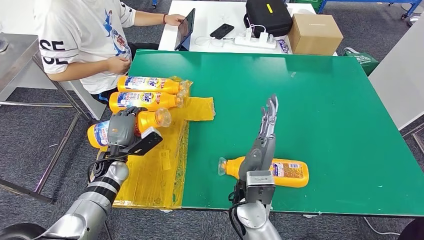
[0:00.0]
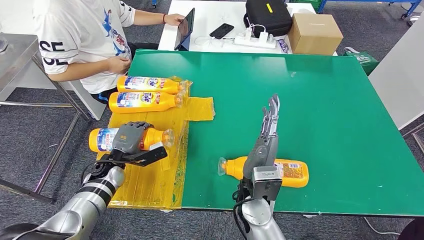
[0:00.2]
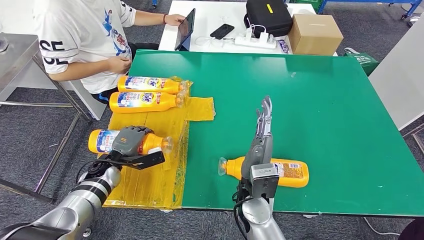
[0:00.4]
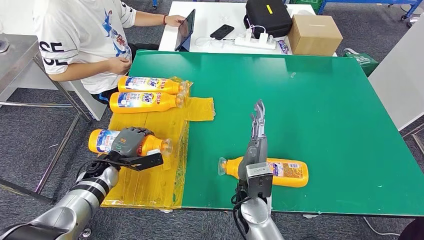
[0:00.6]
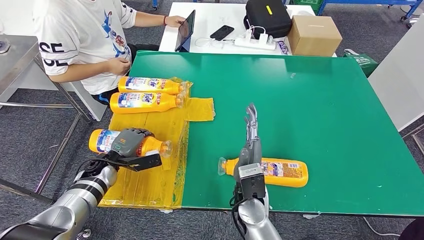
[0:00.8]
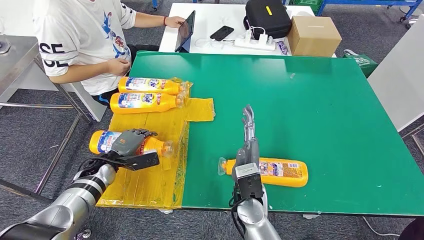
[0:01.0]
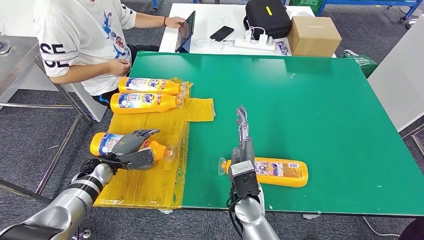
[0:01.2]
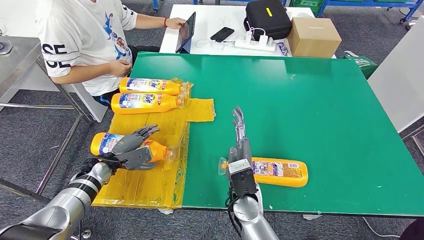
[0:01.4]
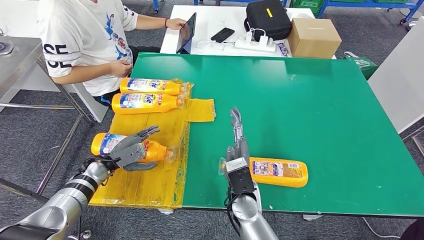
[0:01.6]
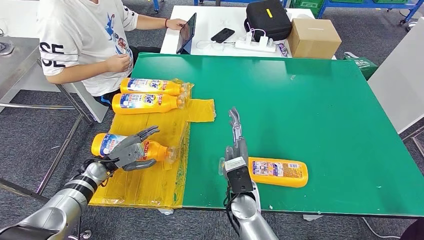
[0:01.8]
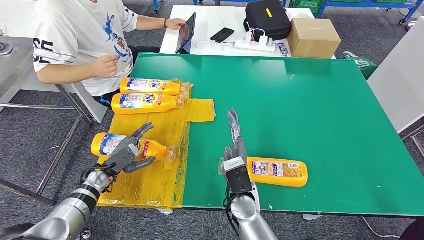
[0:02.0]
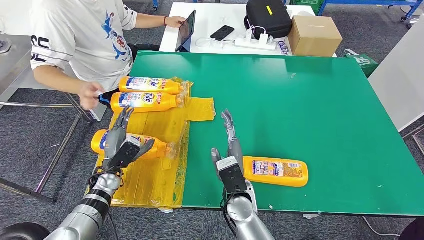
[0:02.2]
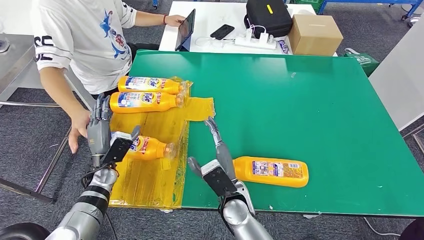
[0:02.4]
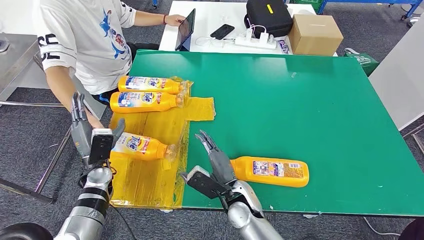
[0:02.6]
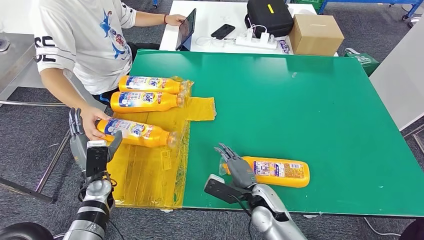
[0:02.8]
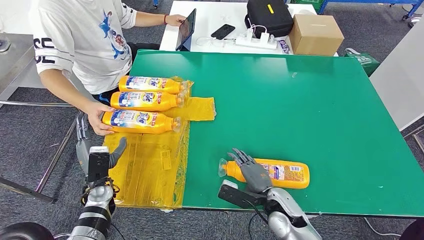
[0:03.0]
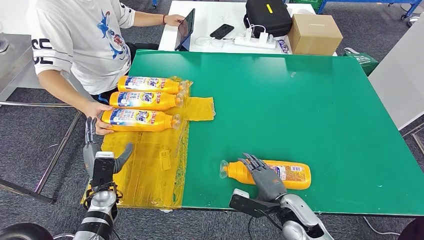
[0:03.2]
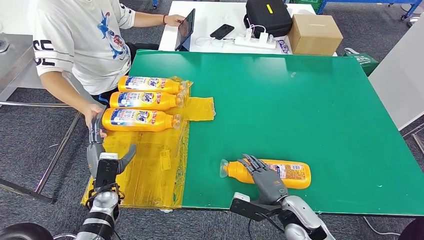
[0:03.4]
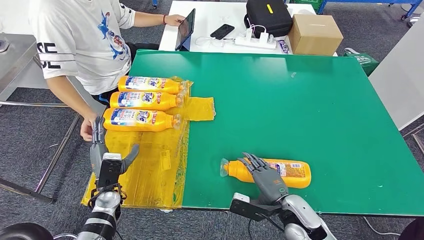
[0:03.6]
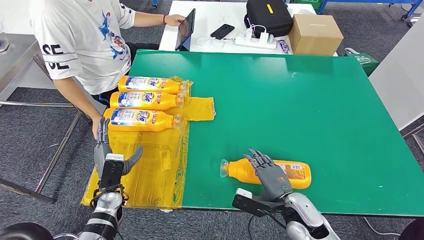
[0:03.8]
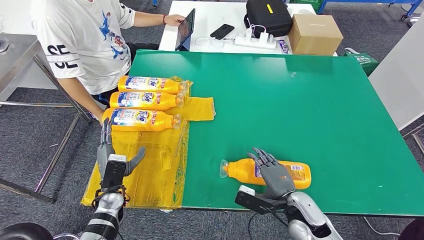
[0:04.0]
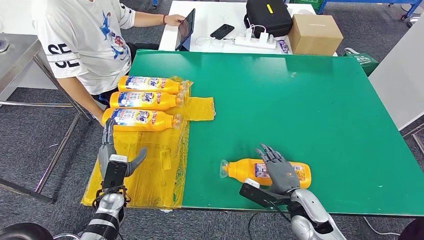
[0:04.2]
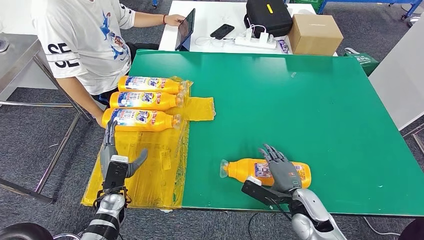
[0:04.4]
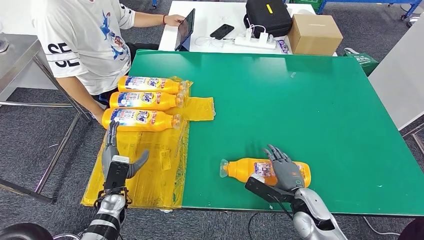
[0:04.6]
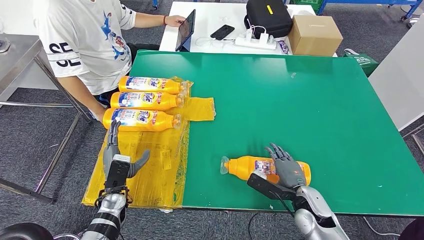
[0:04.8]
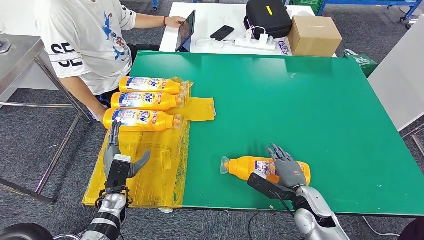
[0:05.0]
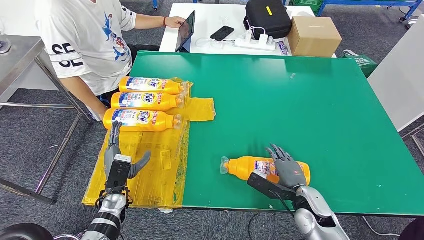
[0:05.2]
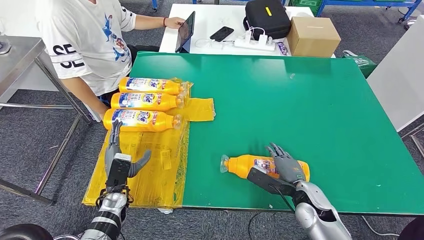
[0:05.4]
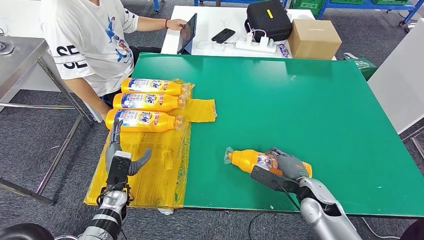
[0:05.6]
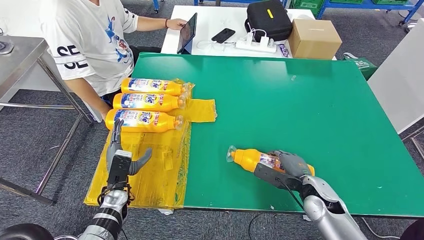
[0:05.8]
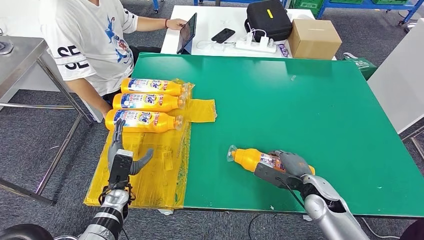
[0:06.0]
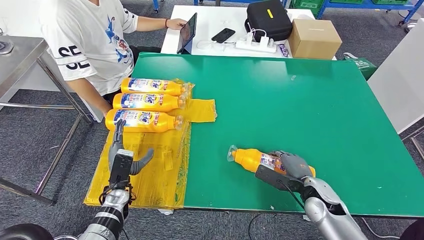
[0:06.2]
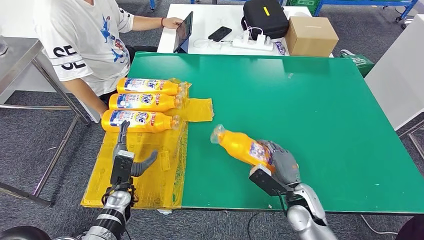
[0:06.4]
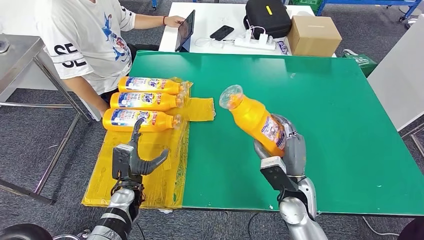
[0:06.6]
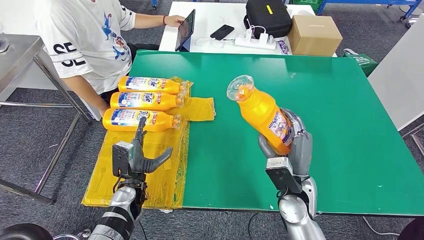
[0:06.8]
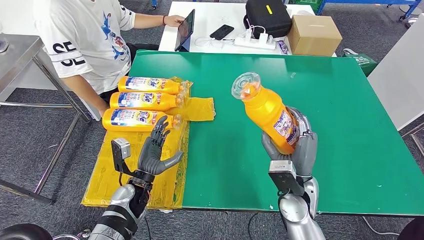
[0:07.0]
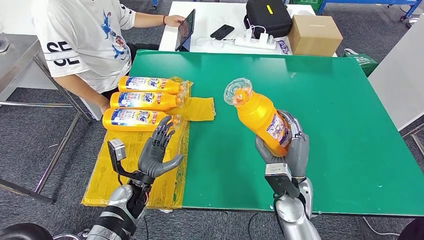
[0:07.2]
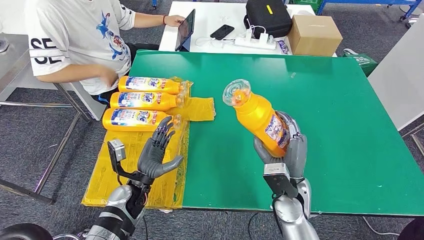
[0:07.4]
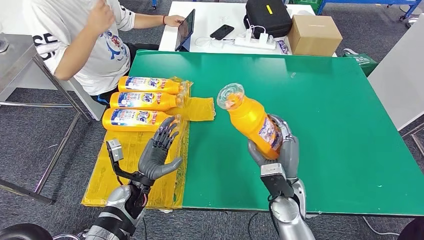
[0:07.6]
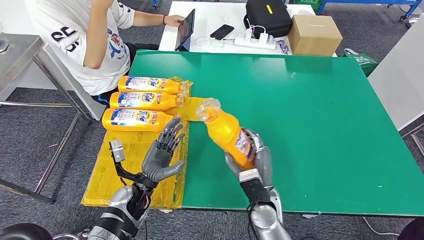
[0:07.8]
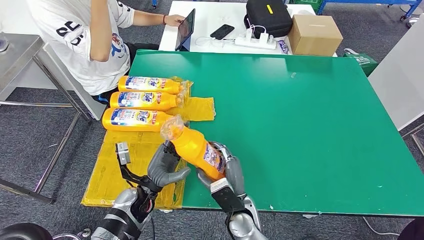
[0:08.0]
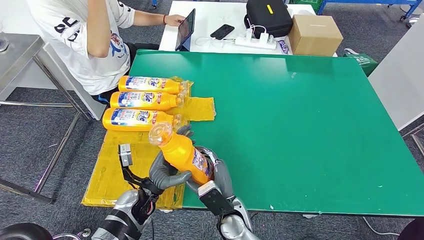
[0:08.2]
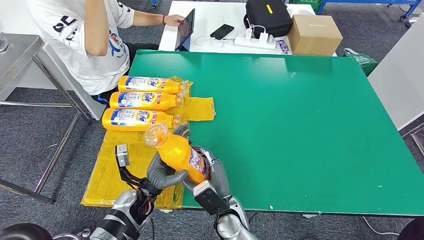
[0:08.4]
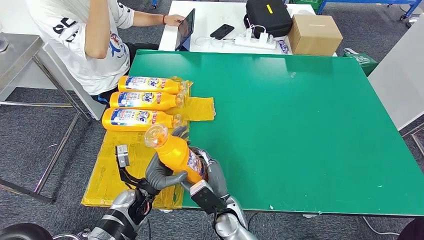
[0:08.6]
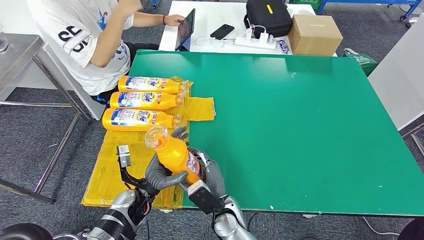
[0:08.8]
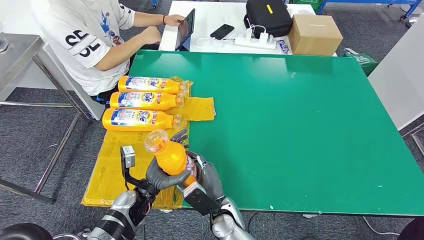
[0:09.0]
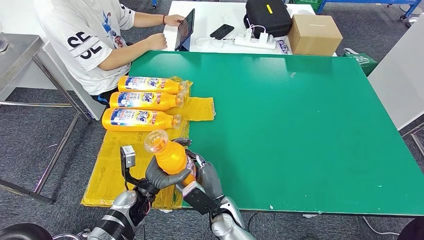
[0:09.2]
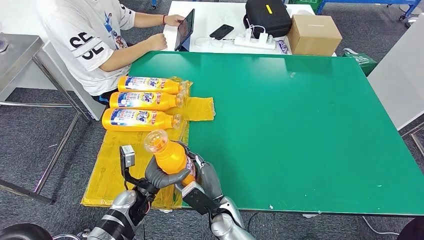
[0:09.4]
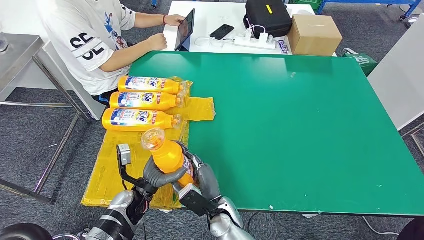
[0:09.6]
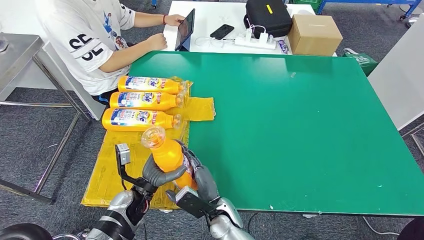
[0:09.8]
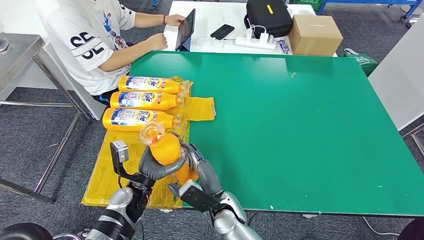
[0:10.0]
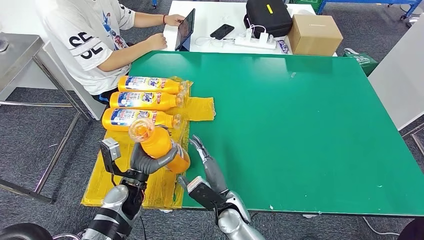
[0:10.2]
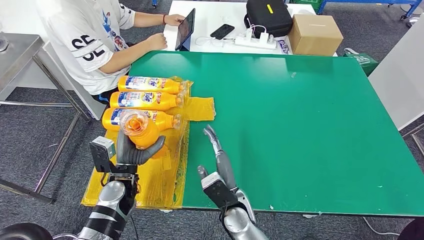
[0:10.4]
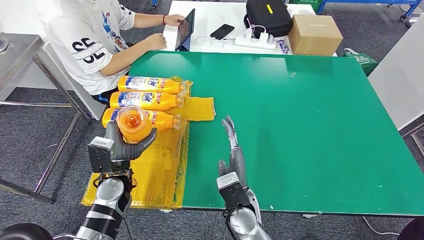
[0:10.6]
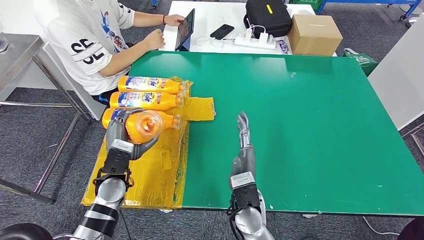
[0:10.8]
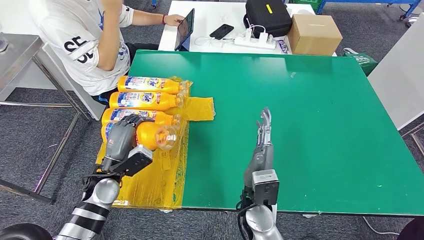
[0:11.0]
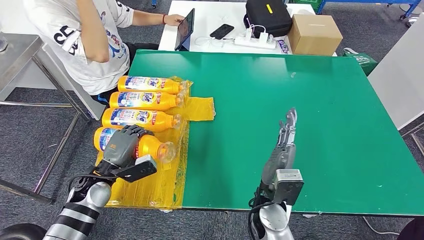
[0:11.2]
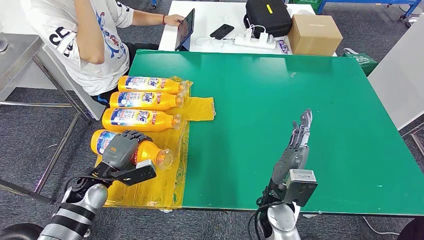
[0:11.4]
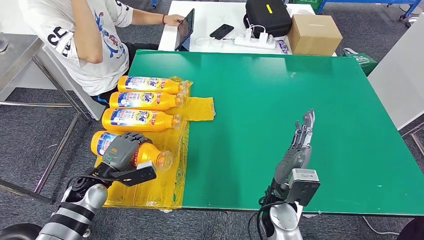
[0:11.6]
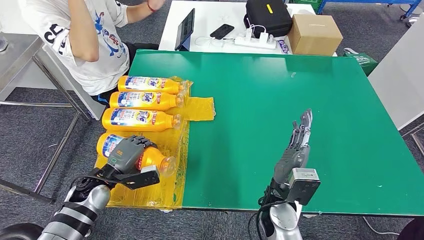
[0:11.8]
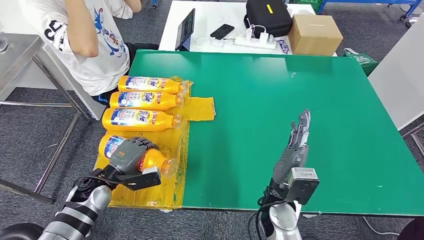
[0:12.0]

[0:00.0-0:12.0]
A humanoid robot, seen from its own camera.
Step, 0:01.0 to 0:08.4: Pick up the fast-moving consumer goods bottle from the table.
Step, 0:08.6 to 0:11.8: Flip the fast-moving consumer goods bottle to the front side.
0:03.0 to 0:04.4: The right hand heads to the right, covering roughly 5 cm.
0:07.6 to 0:09.0: The right hand is displaced to the left and downward by some 15 cm.
0:09.0 to 0:10.4: The left hand changes place by some 5 cm, while the right hand changes place by roughly 5 cm.
0:10.4 to 0:12.0: The left hand shifts about 10 cm to the left; the right hand moves to the right and upward, some 10 cm.

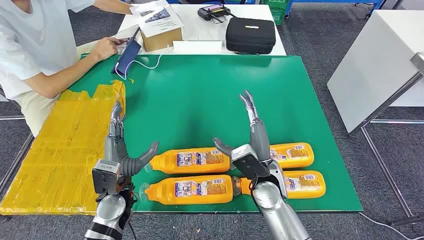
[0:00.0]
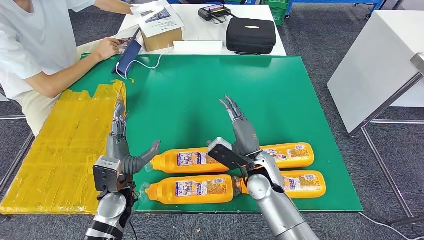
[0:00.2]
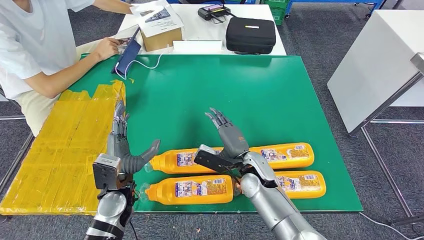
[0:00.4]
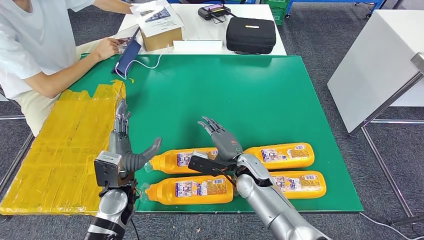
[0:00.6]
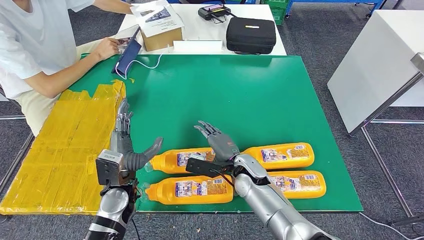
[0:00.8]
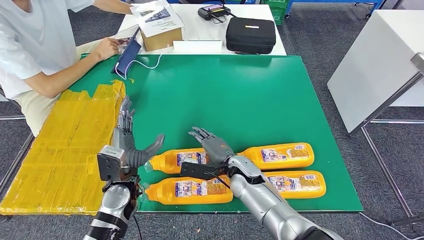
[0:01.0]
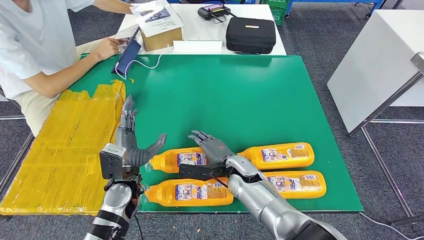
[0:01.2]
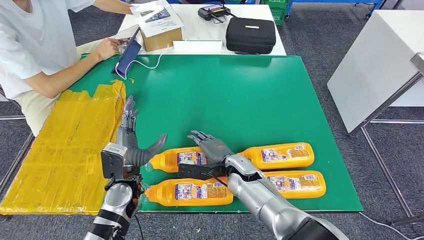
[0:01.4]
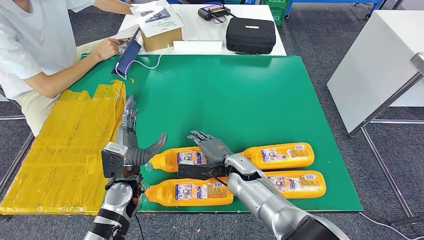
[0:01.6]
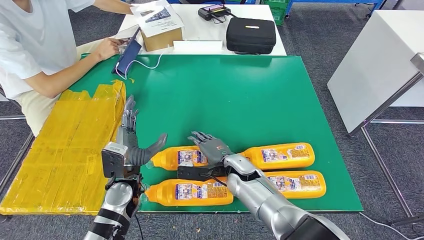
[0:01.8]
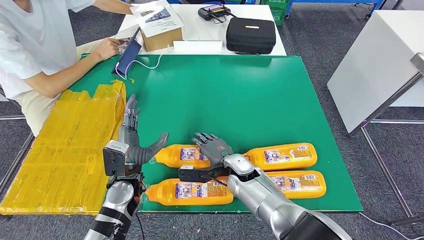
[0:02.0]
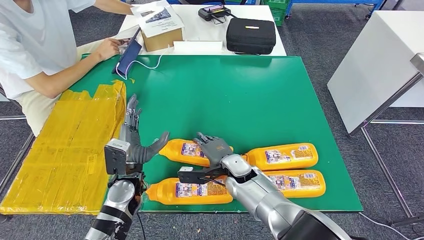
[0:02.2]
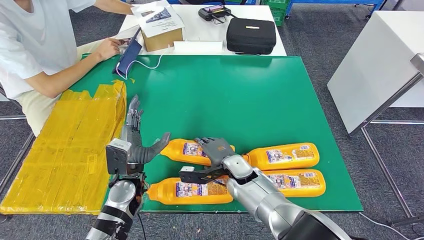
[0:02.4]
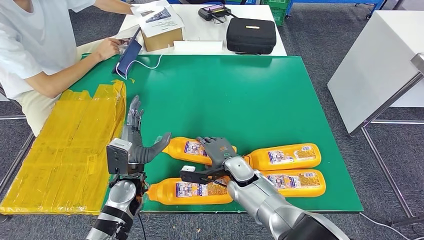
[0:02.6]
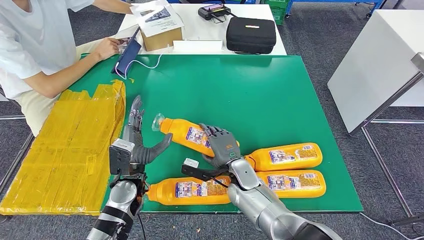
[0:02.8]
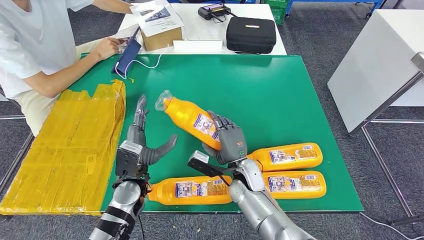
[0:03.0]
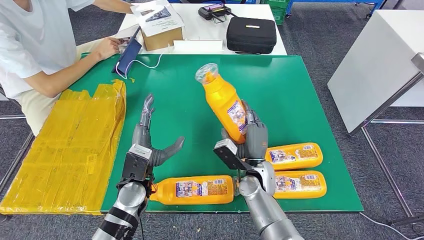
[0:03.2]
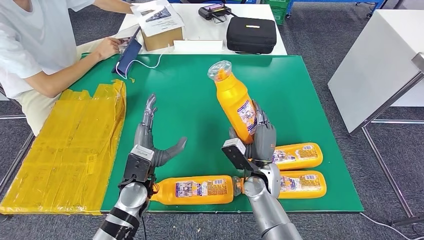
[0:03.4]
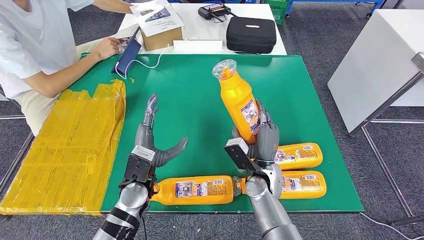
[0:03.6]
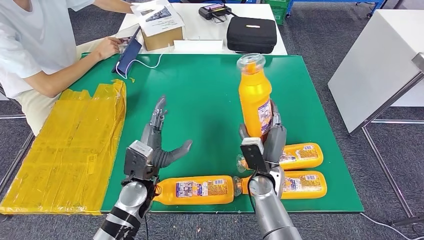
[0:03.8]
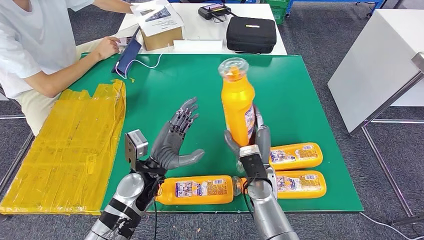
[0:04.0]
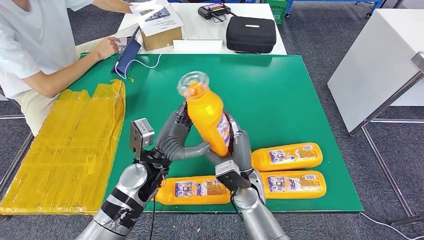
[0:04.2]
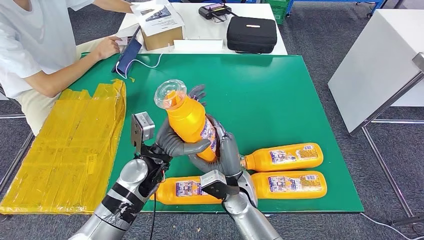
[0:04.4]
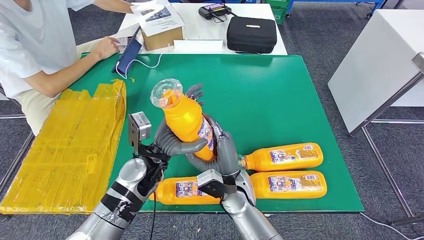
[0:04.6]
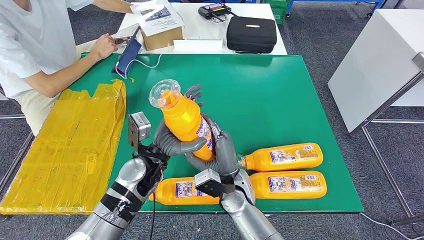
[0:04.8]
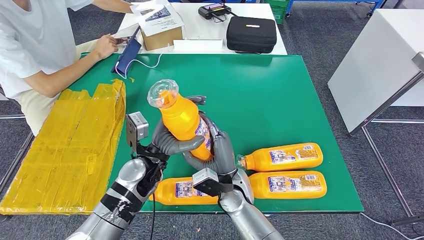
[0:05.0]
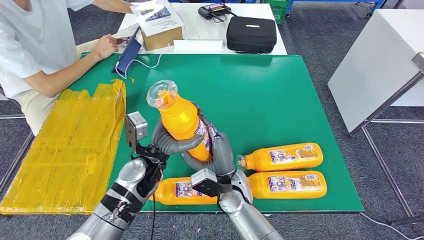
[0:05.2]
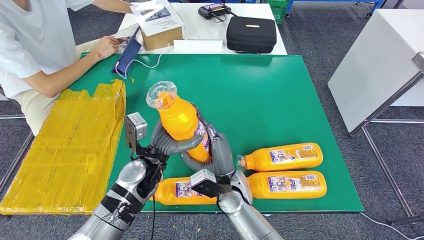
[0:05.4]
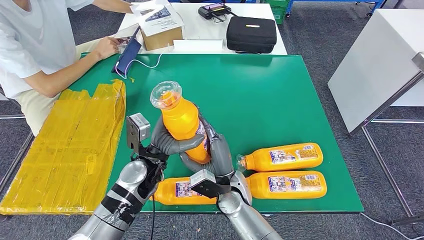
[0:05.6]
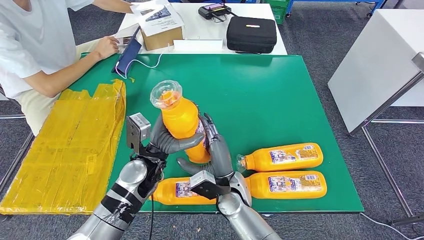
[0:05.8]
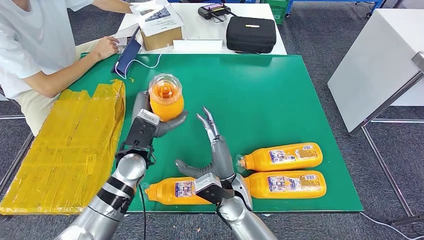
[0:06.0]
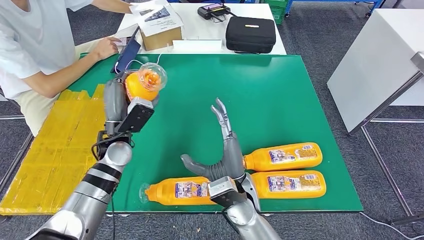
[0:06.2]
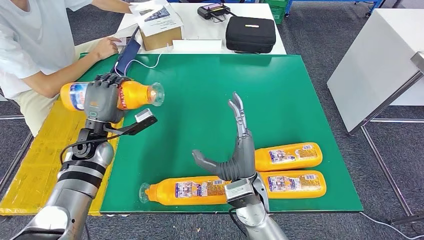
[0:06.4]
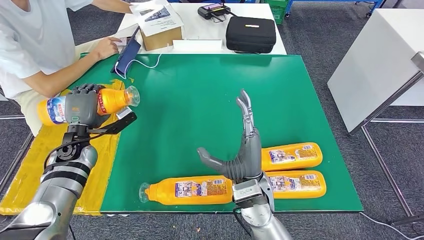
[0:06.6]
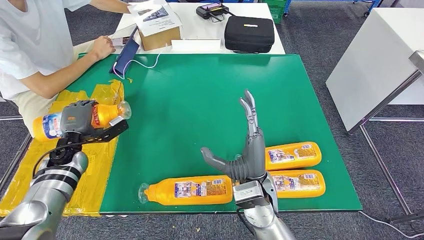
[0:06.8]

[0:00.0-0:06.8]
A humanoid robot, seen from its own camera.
Step, 0:00.0 to 0:04.4: Take the fast-moving consumer goods bottle from the table.
0:02.8 to 0:04.0: The right hand shifts by about 5 cm. Meanwhile the left hand moves some 5 cm.
0:04.0 to 0:05.4: The right hand travels to the left by some 10 cm.
